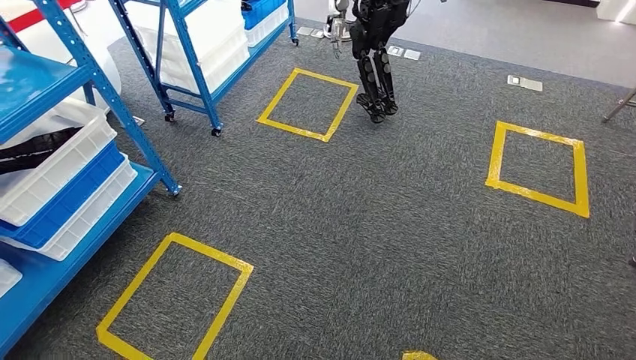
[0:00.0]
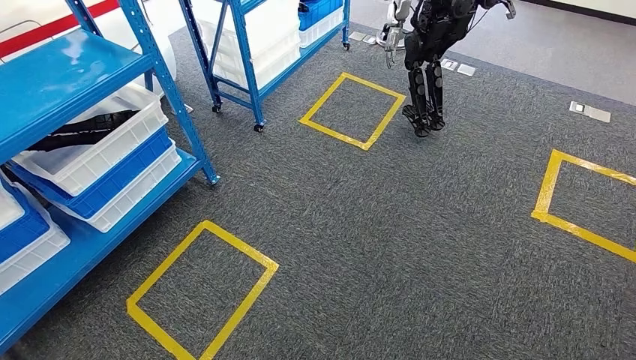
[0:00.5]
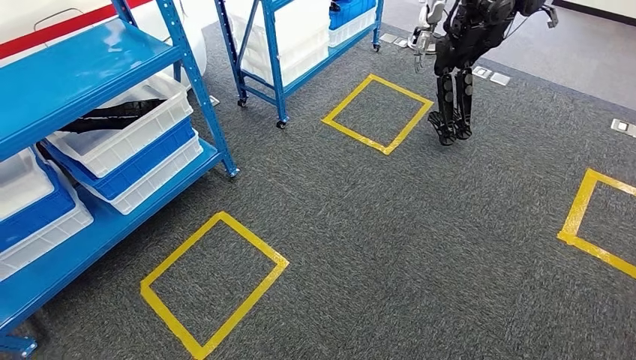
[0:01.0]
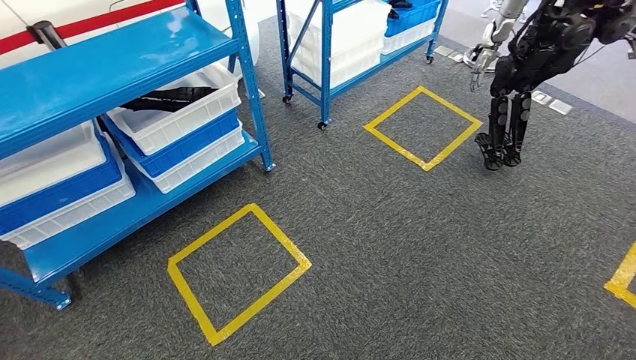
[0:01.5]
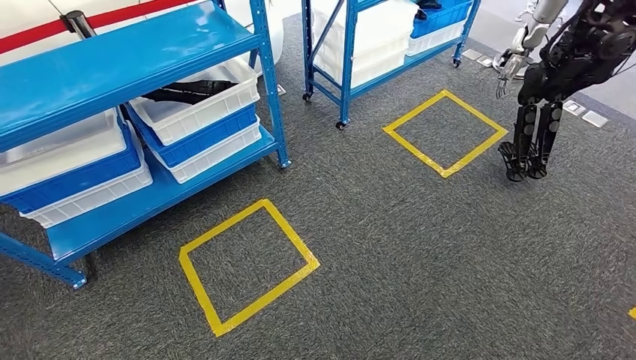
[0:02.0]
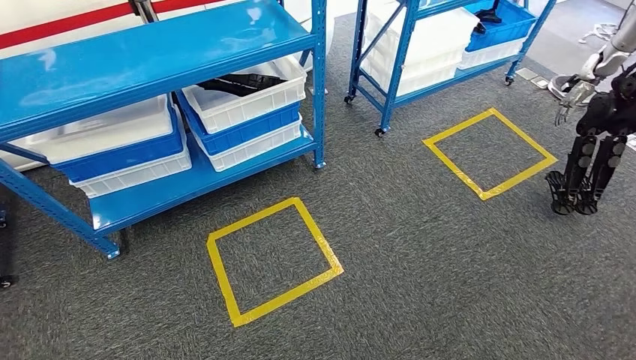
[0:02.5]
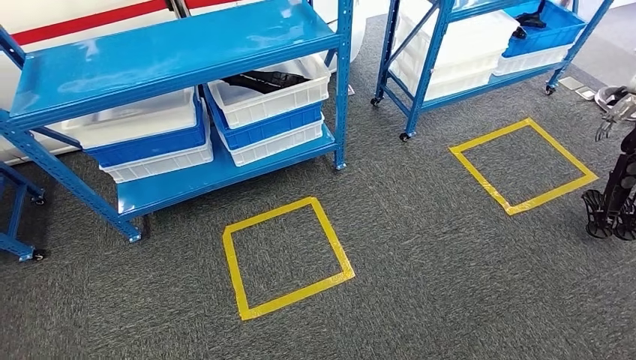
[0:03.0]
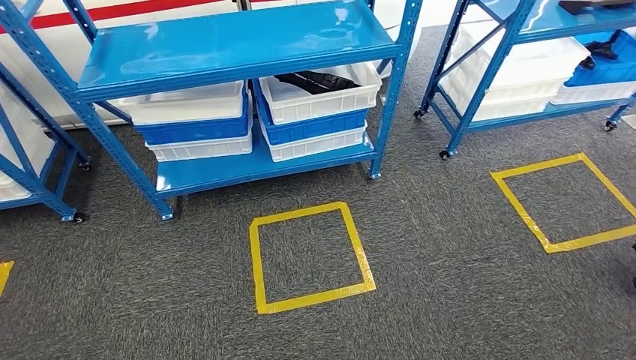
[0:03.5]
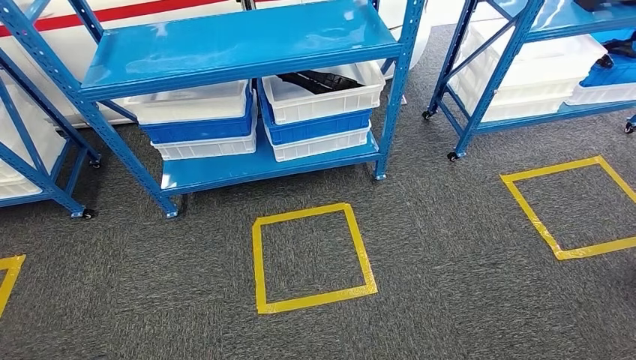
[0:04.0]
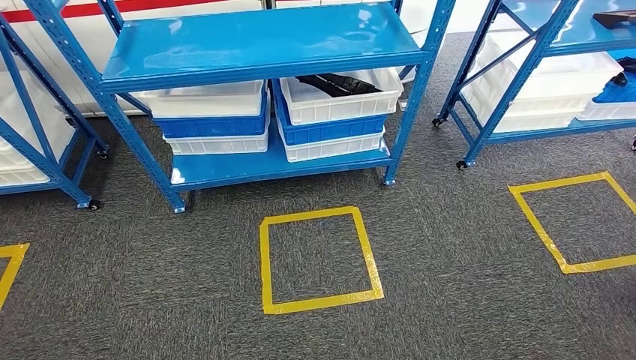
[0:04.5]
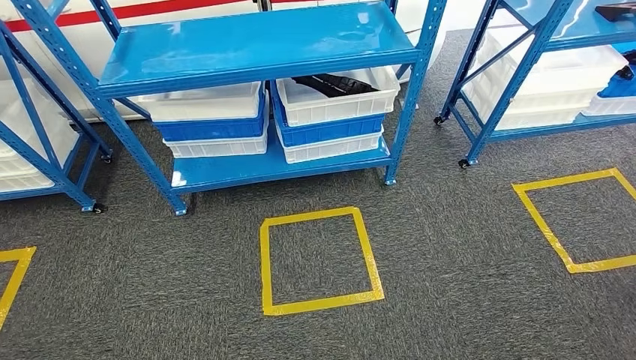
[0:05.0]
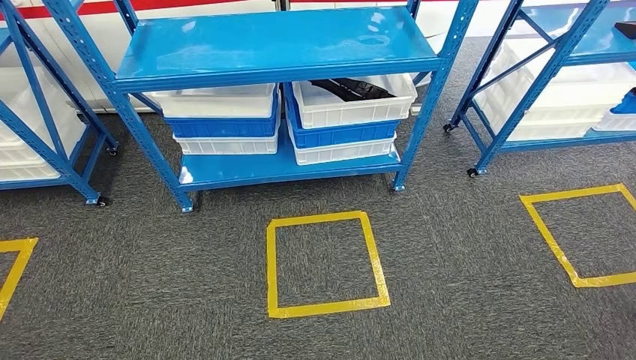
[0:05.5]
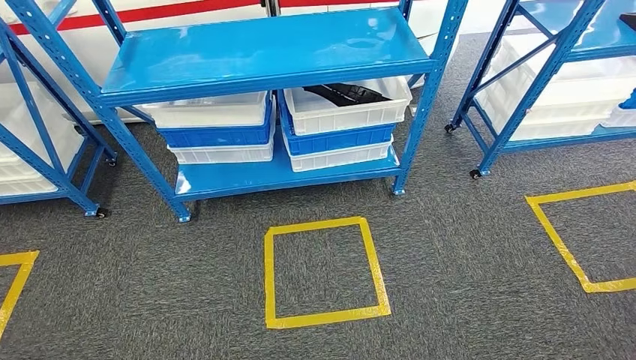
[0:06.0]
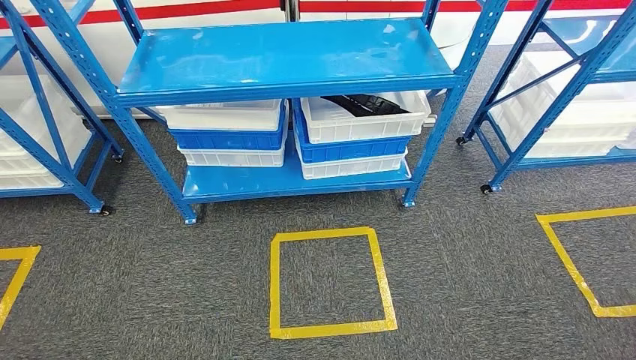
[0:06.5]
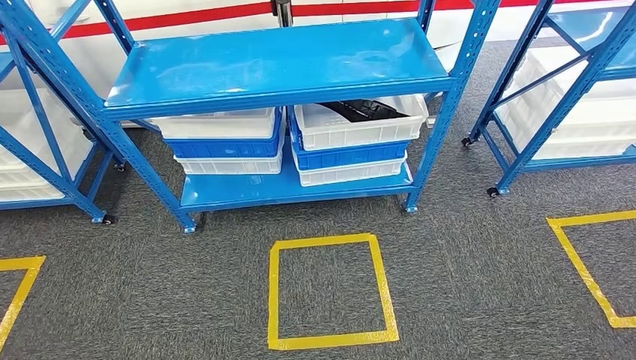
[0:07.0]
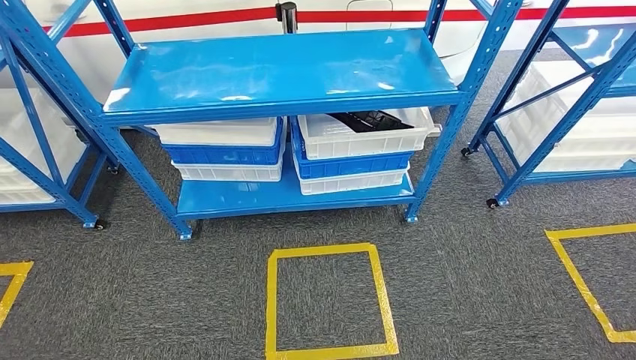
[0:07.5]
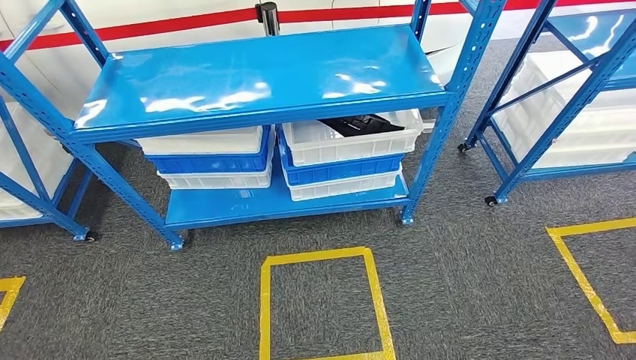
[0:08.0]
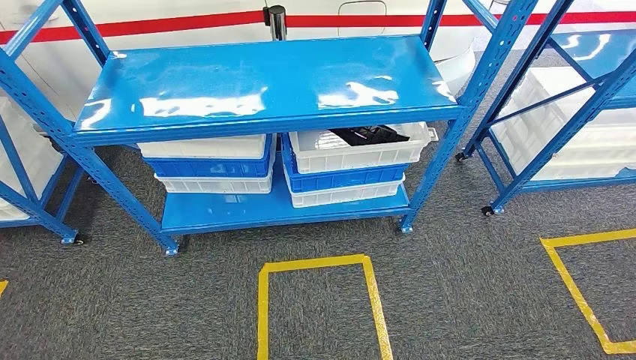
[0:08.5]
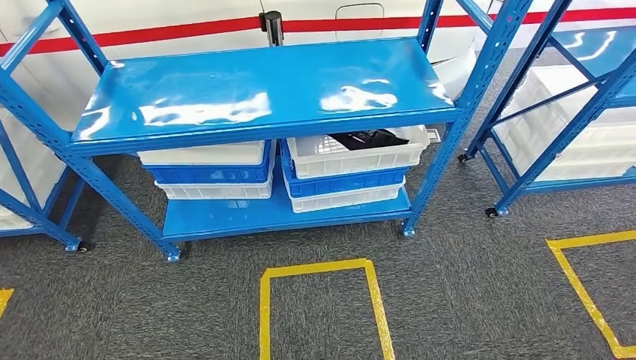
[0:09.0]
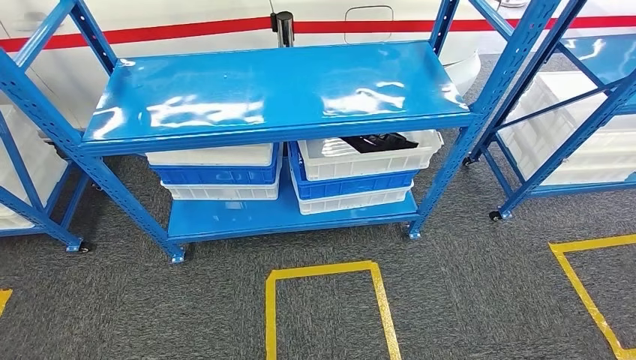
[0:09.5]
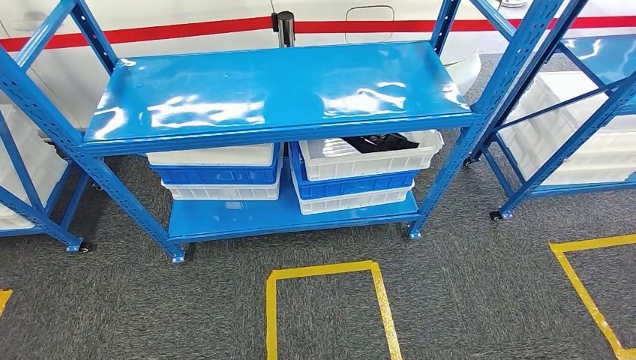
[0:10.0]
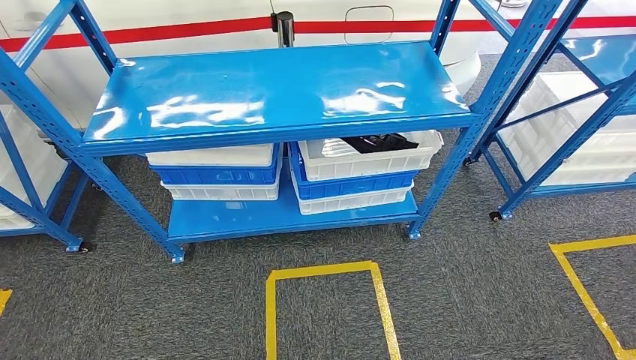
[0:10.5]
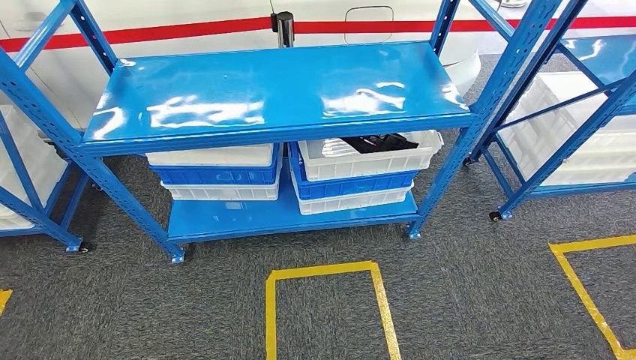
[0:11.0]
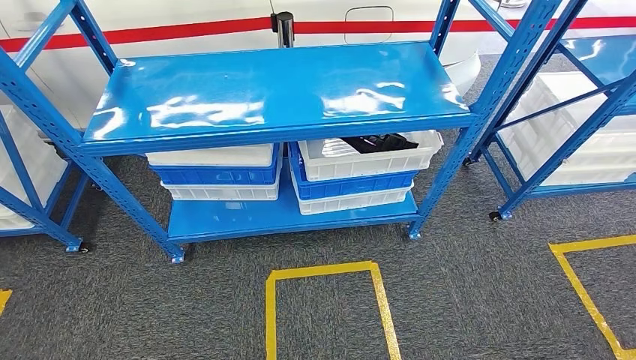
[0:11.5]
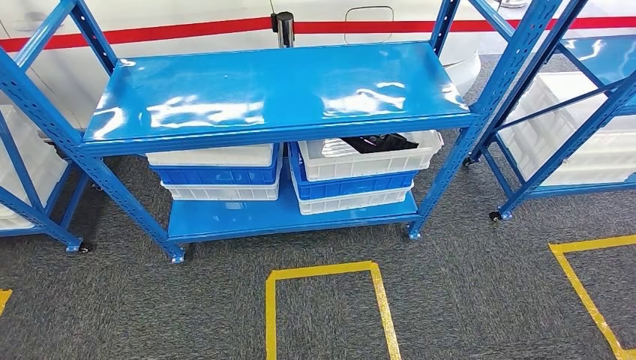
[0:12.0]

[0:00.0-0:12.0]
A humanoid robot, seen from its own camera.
Step, 0:00.0 to 0:12.0: Move to the initial position of the shelf.
0:10.0 to 0:12.0: The right hand moves some 5 cm.
